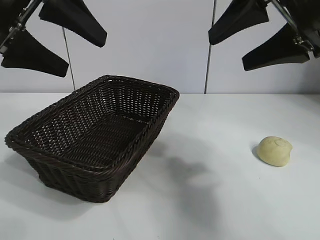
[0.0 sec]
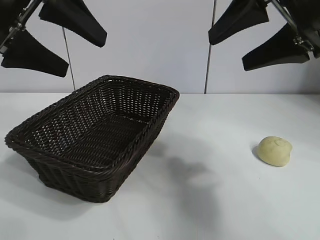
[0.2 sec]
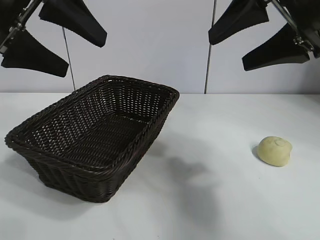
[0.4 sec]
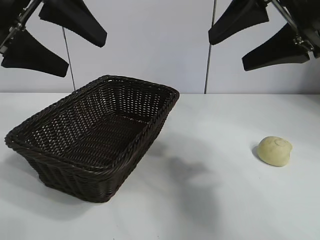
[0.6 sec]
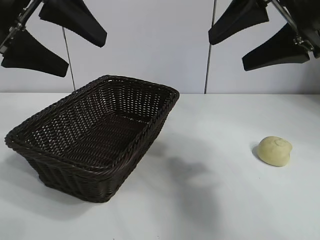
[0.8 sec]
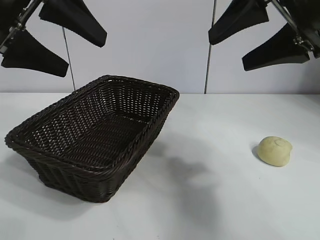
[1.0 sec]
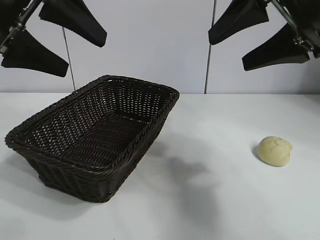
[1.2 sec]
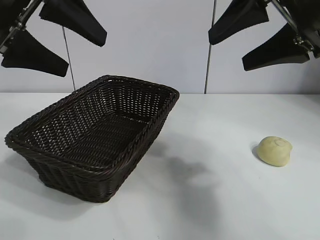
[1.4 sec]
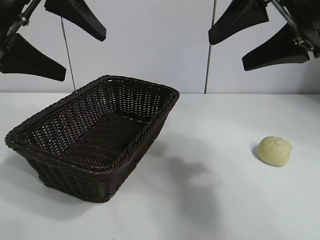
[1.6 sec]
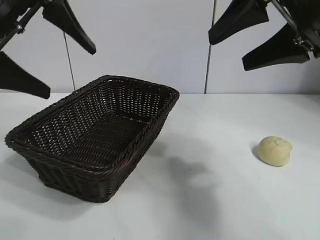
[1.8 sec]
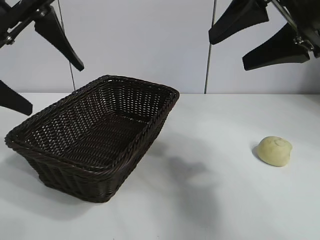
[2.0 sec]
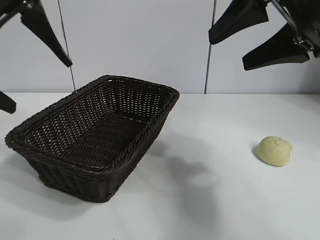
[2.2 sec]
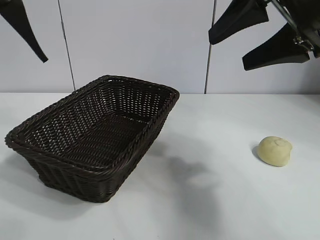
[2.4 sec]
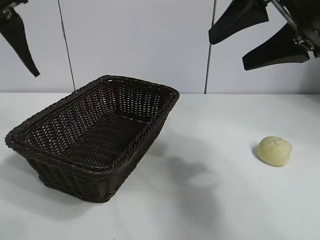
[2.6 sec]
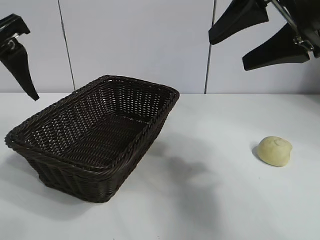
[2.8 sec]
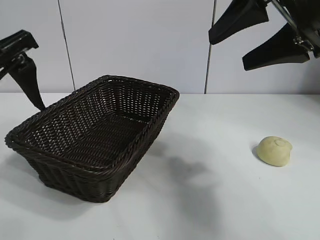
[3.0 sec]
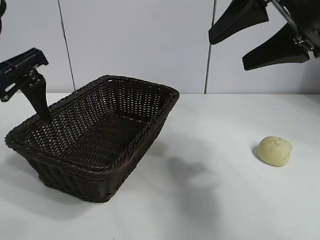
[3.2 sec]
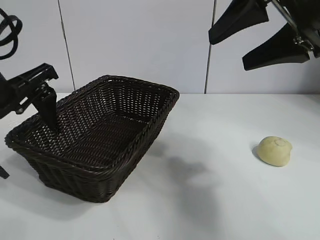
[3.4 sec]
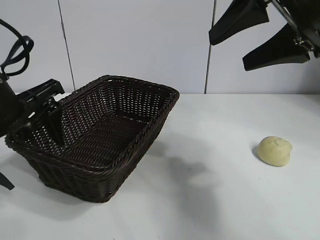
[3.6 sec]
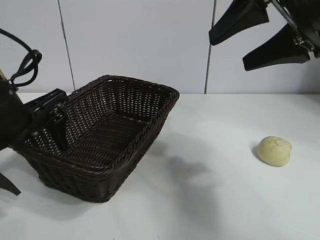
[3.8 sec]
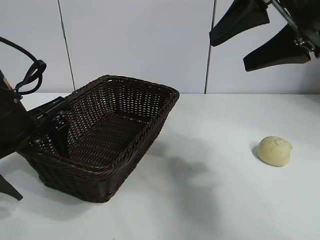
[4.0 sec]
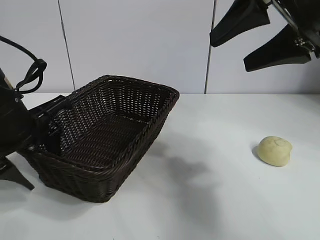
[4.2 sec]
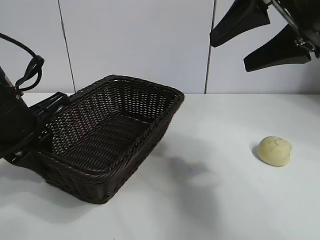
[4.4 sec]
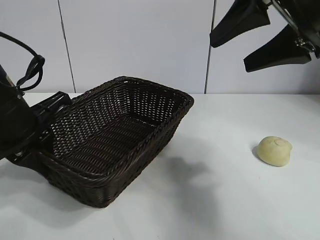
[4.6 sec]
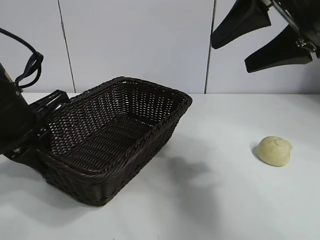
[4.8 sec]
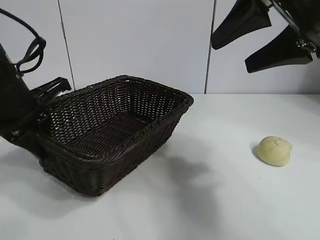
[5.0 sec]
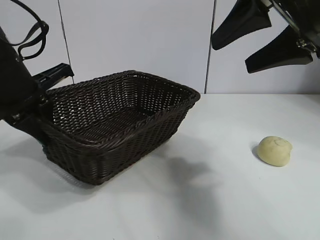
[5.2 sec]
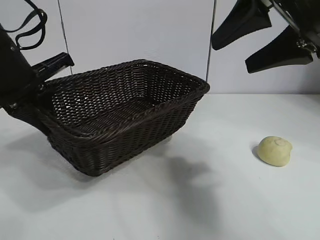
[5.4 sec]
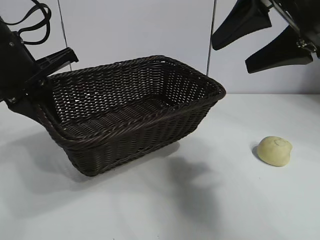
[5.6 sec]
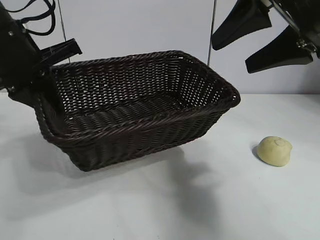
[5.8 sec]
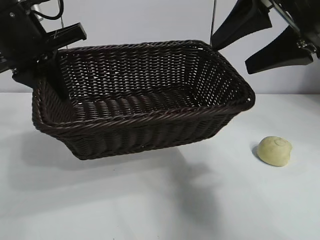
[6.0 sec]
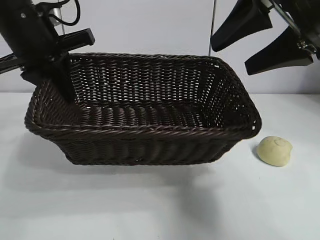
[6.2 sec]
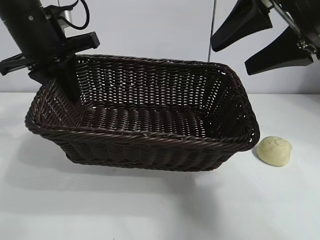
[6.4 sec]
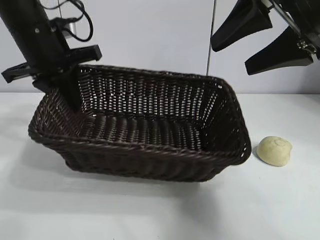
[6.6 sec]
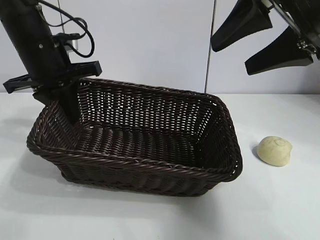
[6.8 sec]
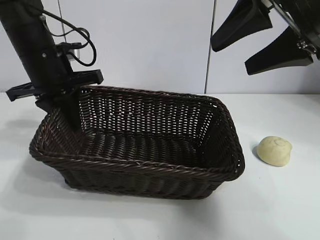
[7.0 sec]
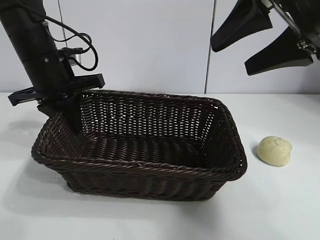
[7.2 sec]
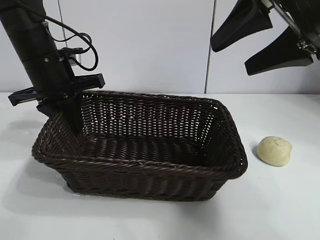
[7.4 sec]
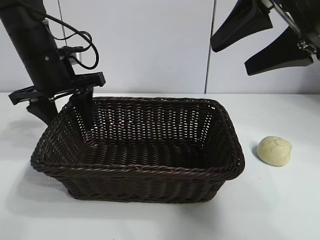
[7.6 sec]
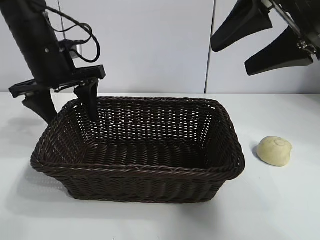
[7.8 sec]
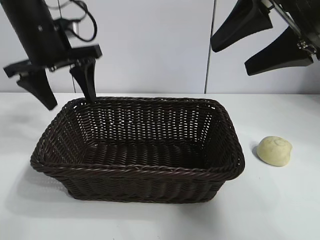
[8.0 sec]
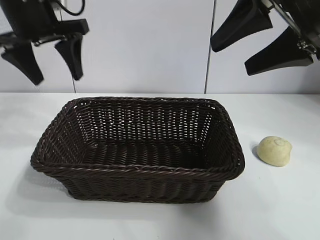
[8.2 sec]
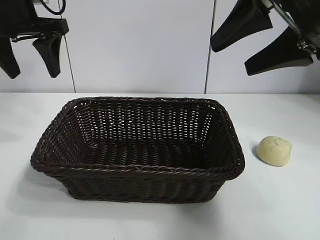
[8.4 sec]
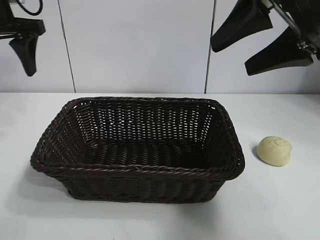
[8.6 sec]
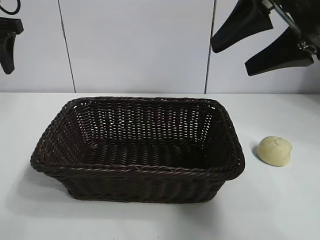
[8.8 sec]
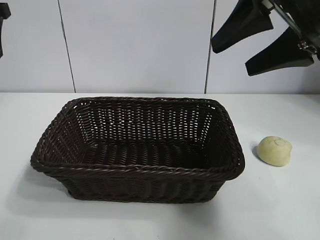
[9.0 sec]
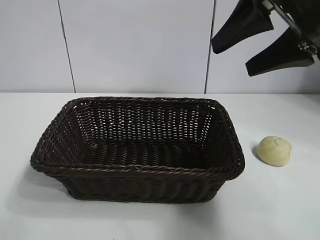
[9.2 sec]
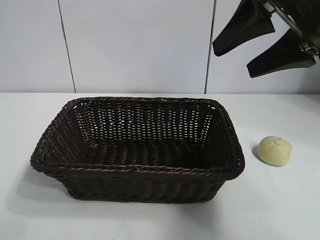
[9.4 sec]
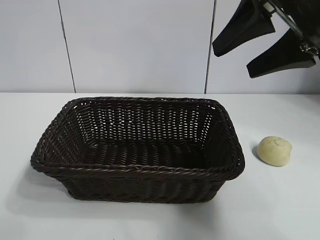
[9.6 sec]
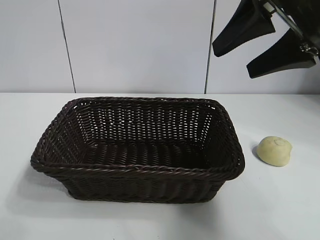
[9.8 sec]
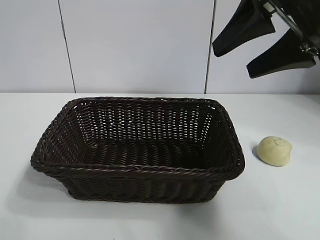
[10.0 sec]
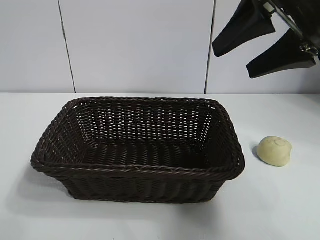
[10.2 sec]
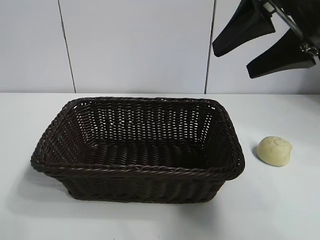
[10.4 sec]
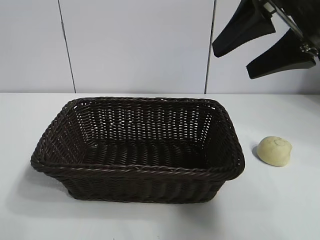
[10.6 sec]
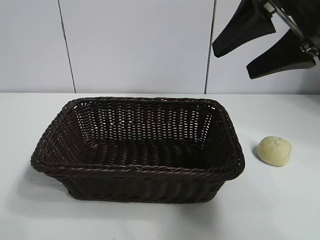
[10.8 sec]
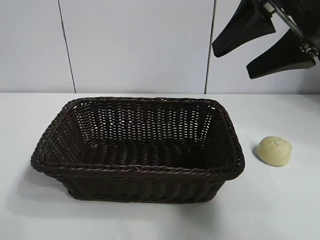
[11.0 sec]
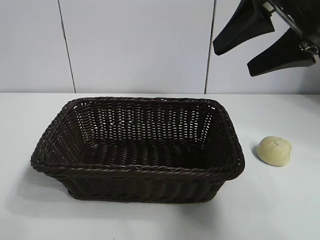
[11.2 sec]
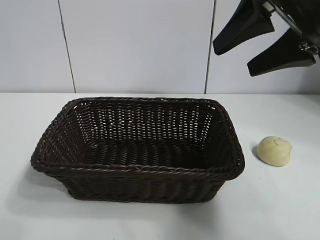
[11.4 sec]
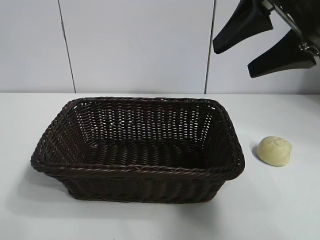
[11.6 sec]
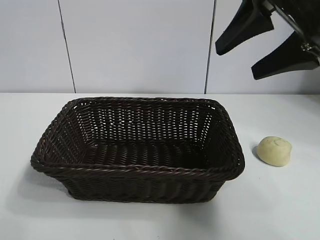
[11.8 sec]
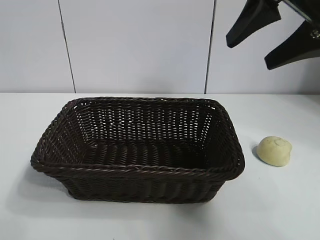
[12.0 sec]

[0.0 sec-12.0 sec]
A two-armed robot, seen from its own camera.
Task of the whole recording: pick up the egg yolk pastry and put it into the basket.
Step, 1.4 sec to 4.4 sec: Grasp the basket with left gripper.
Step, 4.6 sec to 7.8 sec: Place the basket in the center of view with left gripper.

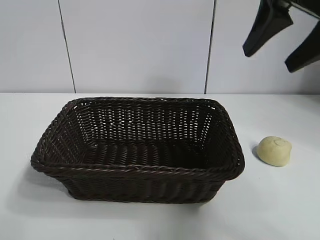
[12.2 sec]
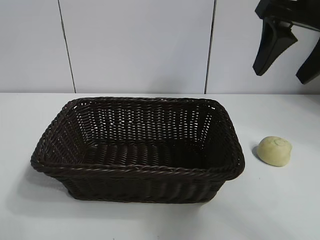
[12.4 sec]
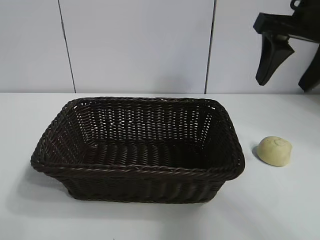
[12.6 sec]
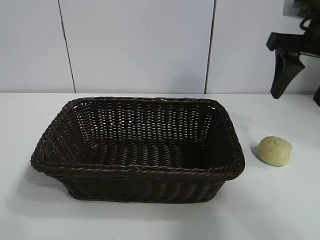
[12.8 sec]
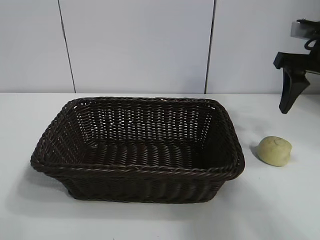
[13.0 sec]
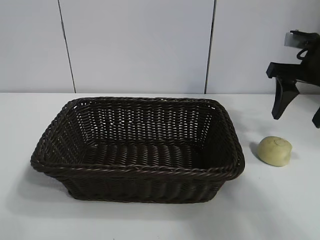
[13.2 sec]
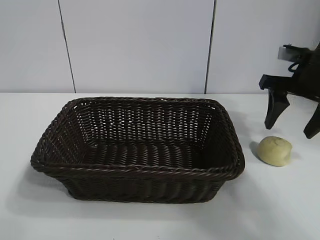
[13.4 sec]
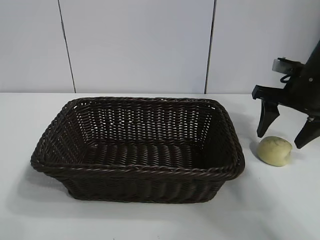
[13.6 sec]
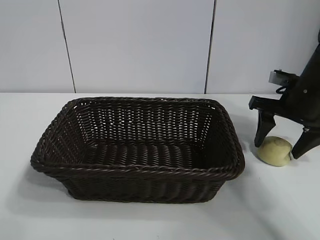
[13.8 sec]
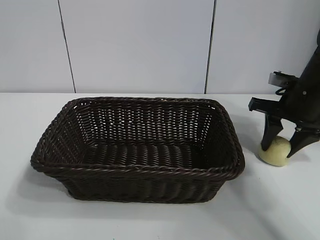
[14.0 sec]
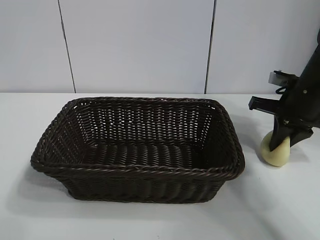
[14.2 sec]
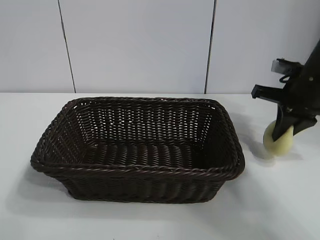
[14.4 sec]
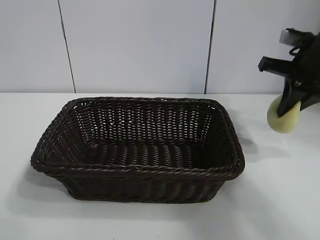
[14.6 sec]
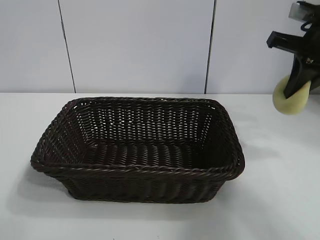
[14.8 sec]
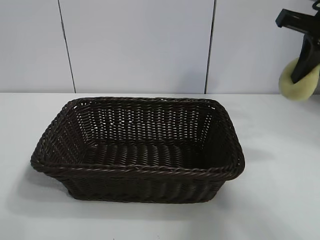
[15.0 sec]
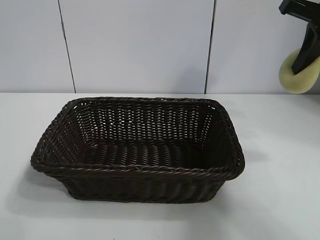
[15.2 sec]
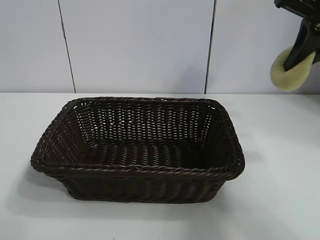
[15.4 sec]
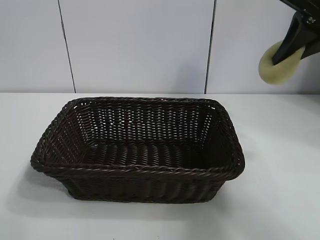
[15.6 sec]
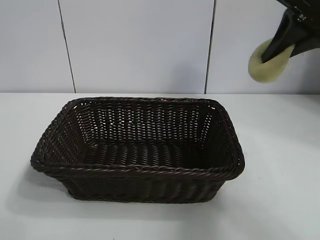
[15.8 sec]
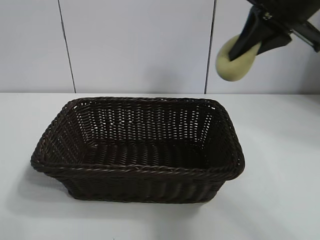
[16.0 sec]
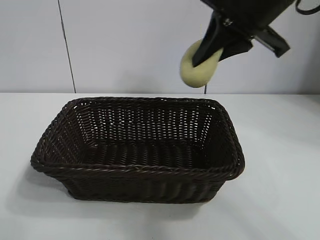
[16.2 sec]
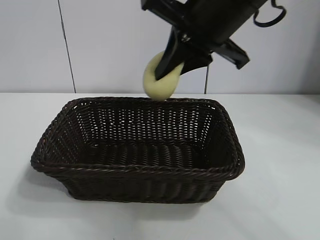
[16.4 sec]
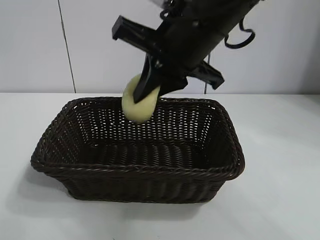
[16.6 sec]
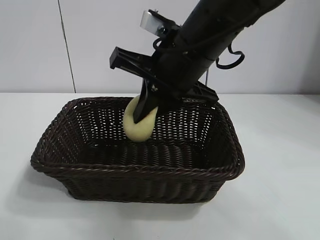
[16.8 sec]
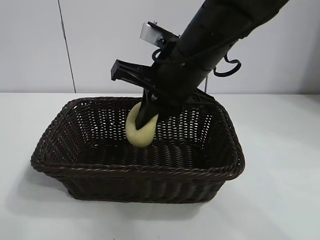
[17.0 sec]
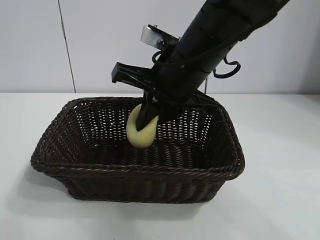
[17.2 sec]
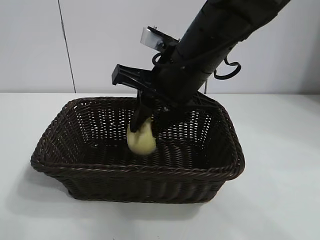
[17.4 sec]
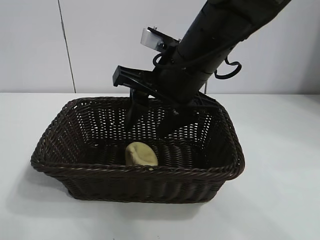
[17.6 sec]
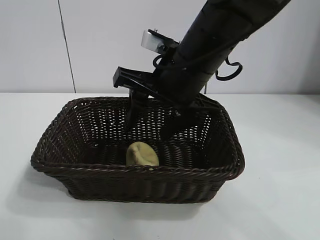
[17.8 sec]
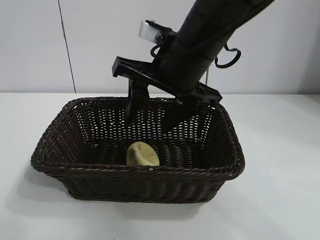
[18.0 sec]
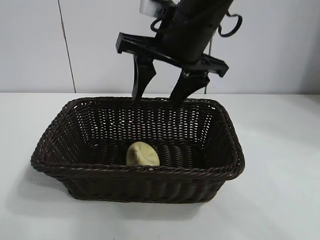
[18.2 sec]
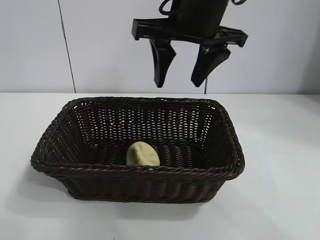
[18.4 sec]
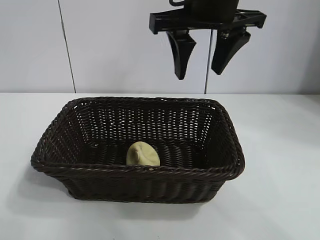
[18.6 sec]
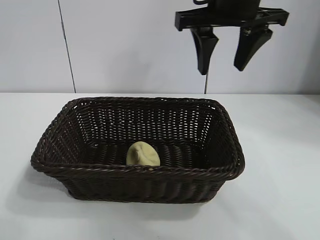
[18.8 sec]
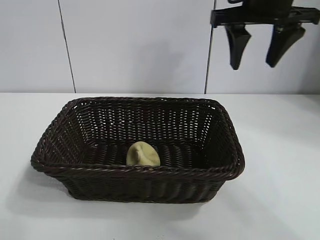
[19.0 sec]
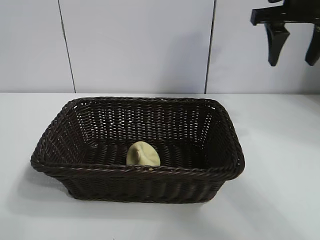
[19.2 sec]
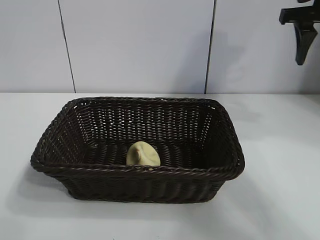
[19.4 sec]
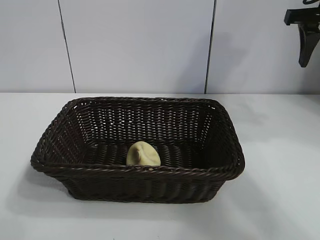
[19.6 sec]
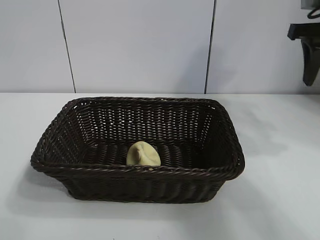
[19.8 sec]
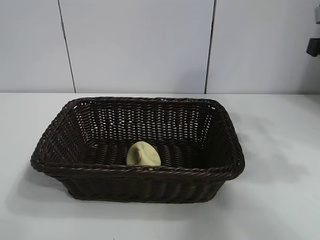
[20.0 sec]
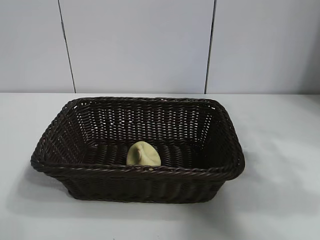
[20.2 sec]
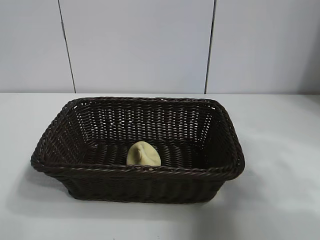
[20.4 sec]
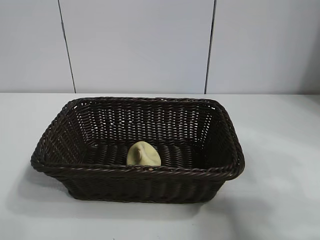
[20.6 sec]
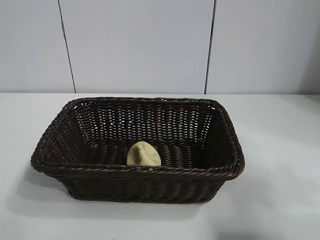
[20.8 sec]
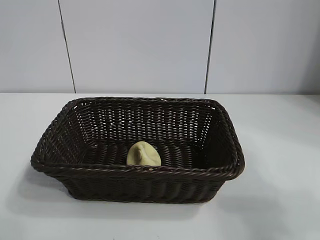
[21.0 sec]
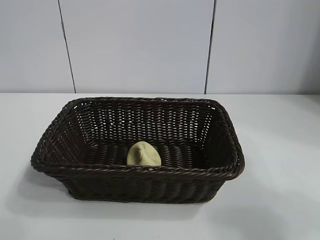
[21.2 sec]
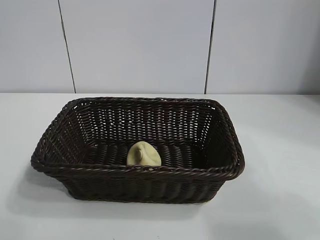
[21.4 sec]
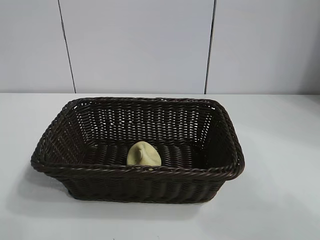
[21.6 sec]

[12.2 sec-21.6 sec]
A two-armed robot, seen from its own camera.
Task of the whole recording: pick up the egg yolk pastry and put it into the basket.
Step, 12.2 sec to 14.2 sec: Grasp egg yolk pastry with right gripper.
Step, 14.4 sec to 17.6 sec: Place the egg yolk pastry in the basket with right gripper.
